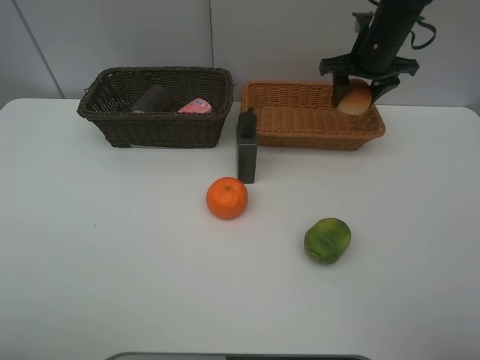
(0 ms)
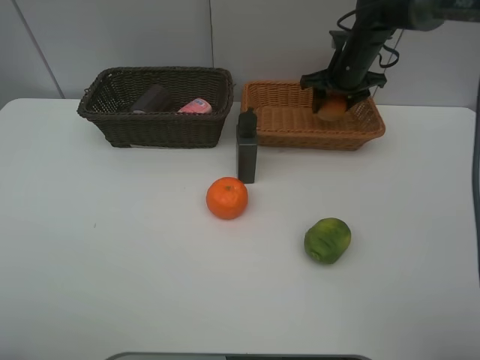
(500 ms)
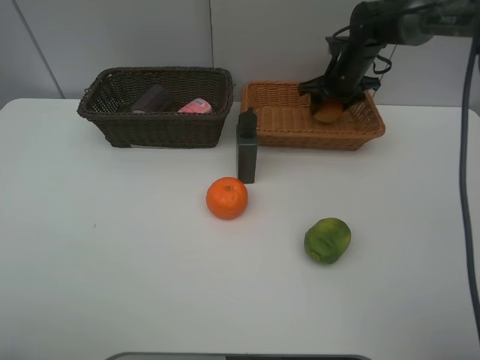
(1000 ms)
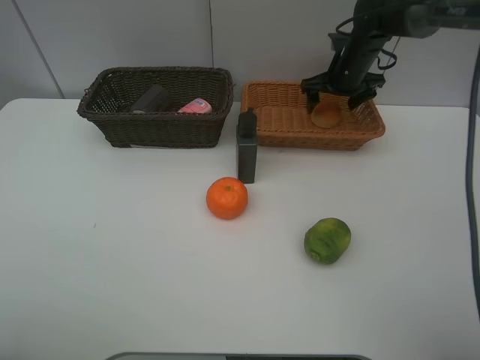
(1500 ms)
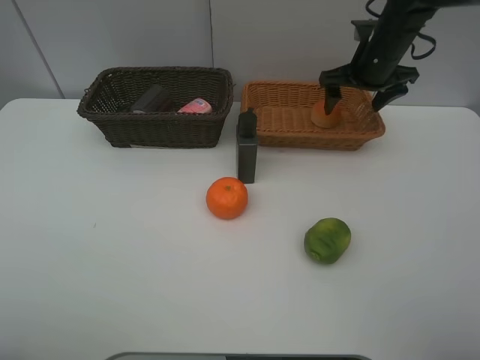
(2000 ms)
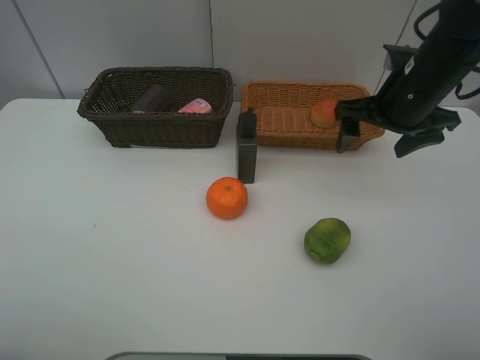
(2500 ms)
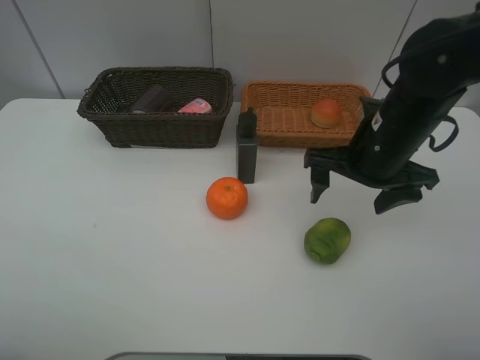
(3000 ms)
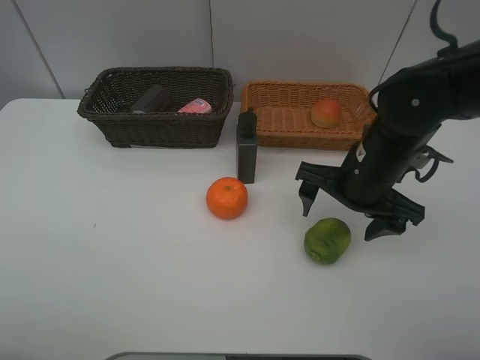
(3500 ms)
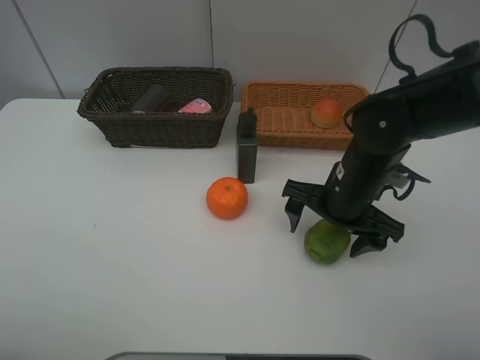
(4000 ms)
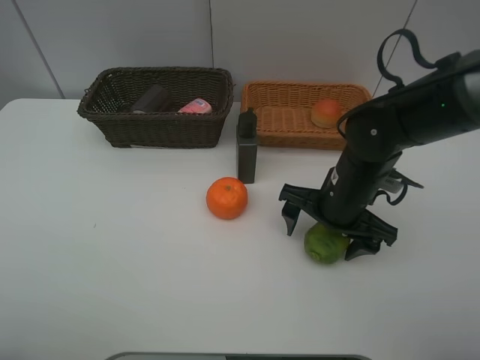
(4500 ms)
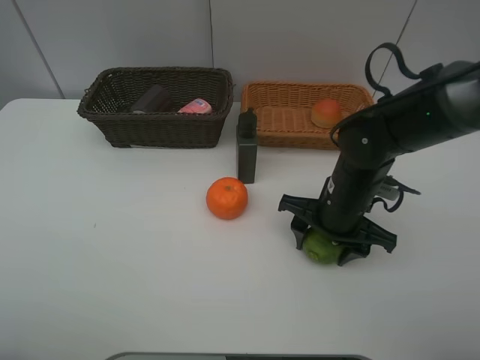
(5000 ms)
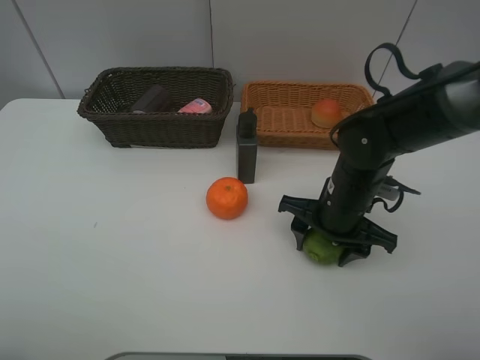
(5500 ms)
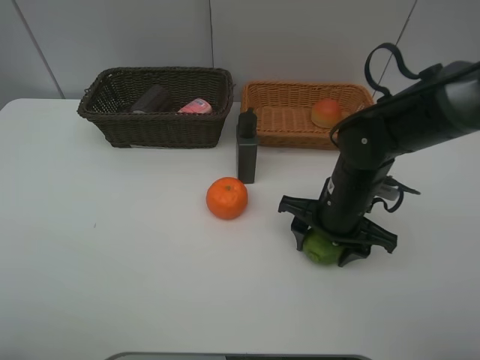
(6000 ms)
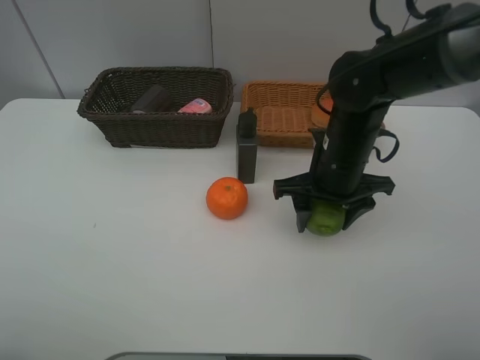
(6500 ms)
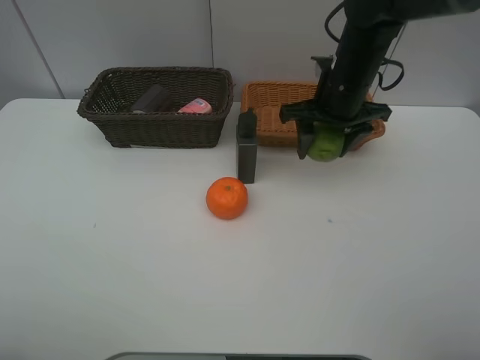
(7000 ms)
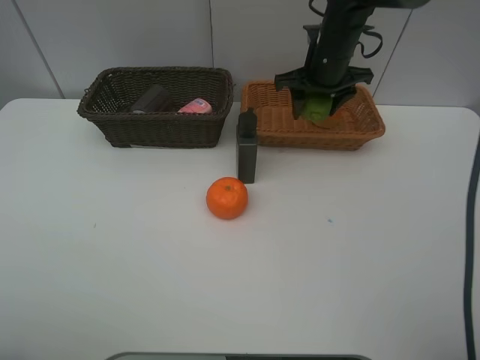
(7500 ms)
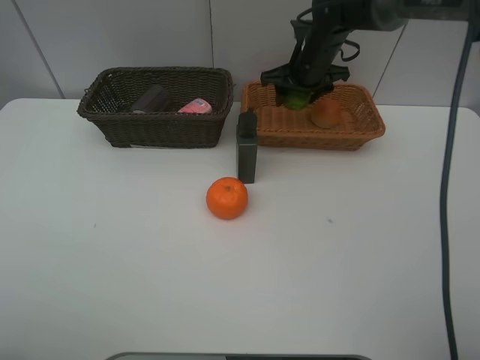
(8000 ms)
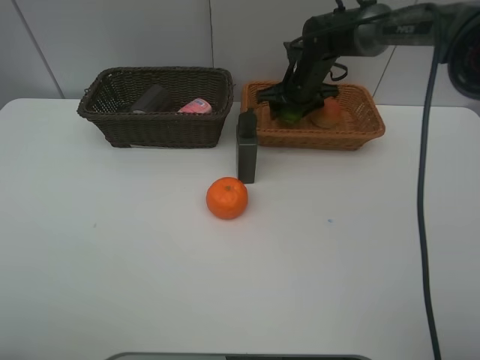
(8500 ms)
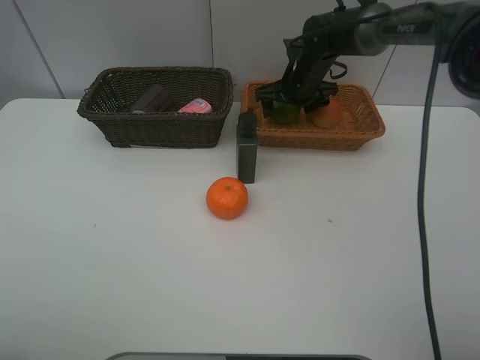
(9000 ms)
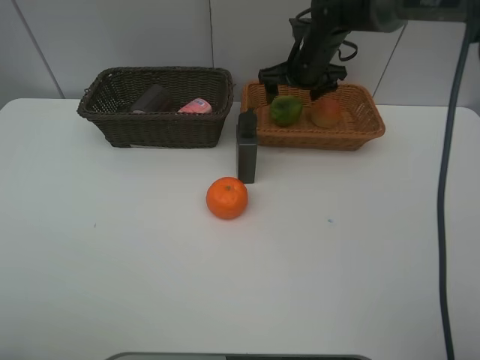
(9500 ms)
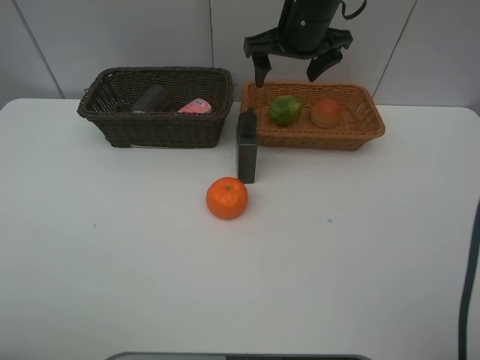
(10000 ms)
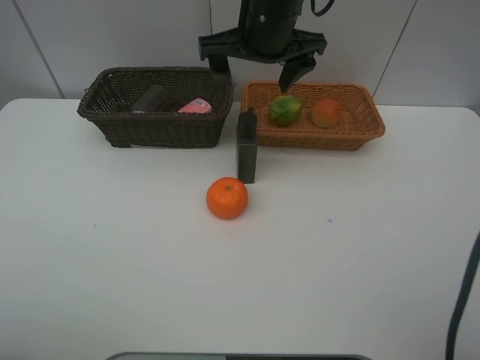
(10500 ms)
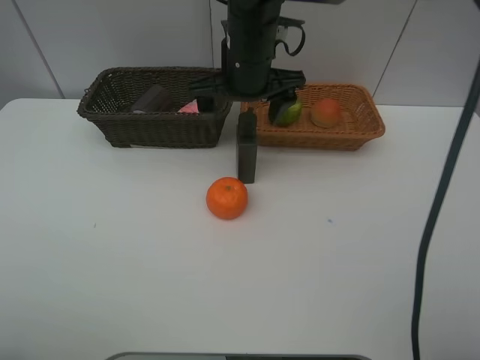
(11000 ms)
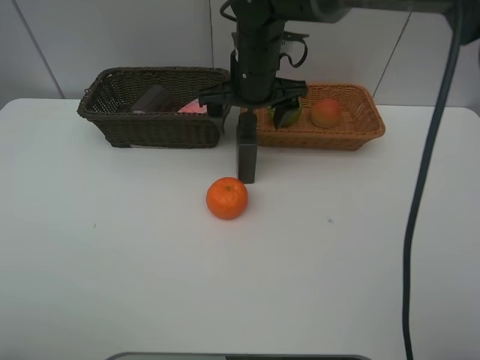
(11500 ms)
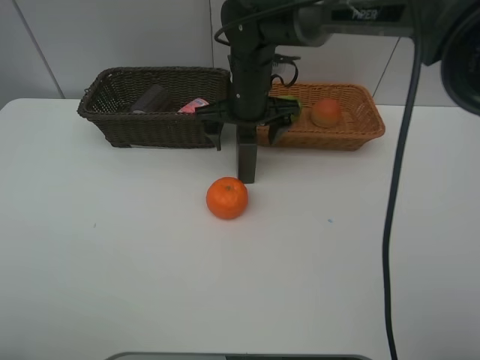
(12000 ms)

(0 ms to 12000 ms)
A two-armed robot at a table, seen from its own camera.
Task of the whole recording: place multiple objects separately in different baskets.
0 ms - 2000 ms: The right gripper opens its fingers.
2000 ms - 4000 ms: The right gripper is displaced backward, downward and to the left by approximately 20 cm.
4000 ms - 6000 ms: The right gripper closes up.
6000 ms - 8000 ms: The right gripper travels forward by roughly 25 cm.
8000 ms - 10000 ms: The right gripper is displaced upward and backward by some 10 cm, and opens its fingers.
10000 ms - 12000 ms: The right gripper is displaced downward and to the left by roughly 10 cm.

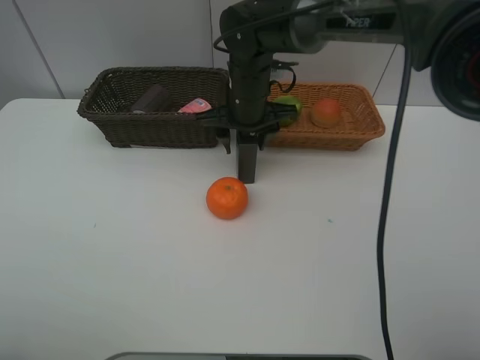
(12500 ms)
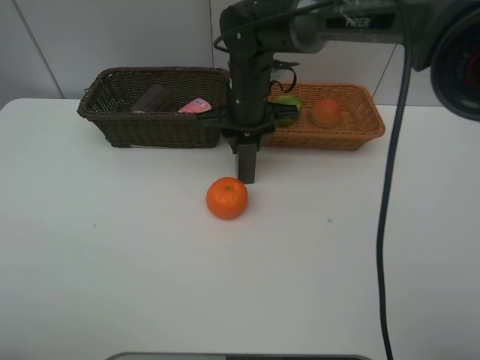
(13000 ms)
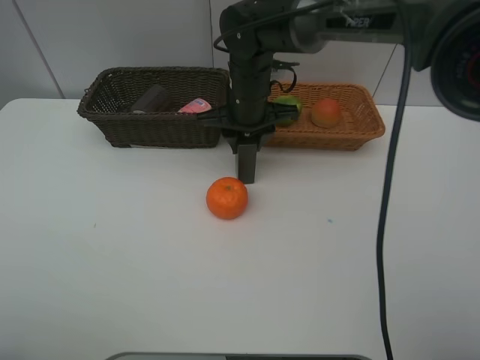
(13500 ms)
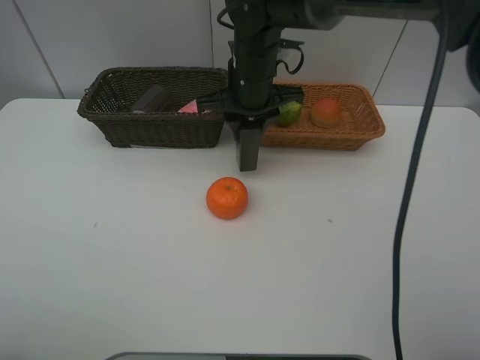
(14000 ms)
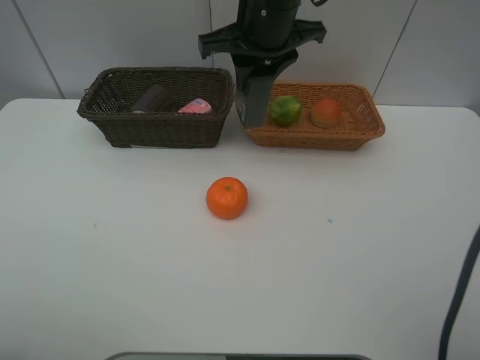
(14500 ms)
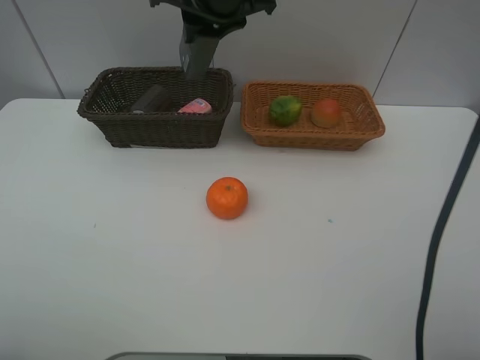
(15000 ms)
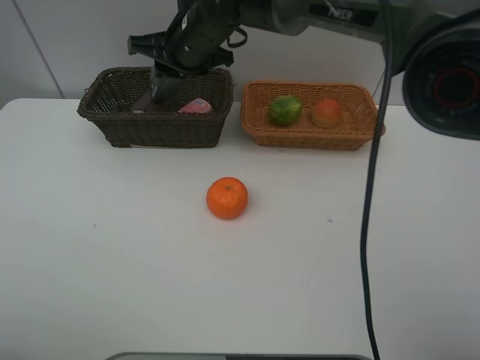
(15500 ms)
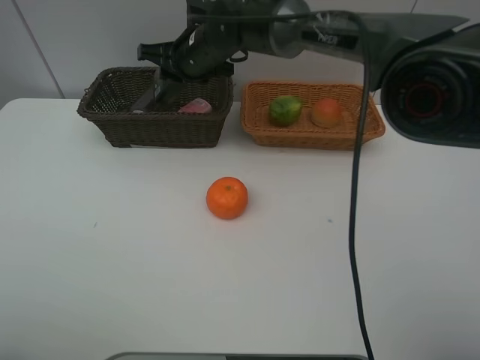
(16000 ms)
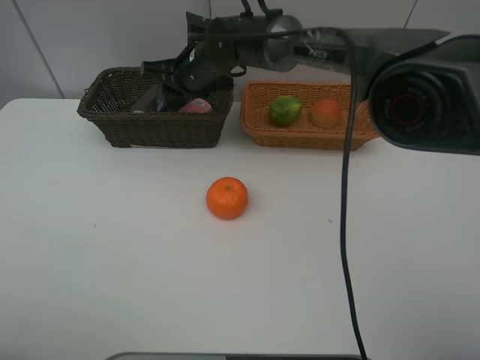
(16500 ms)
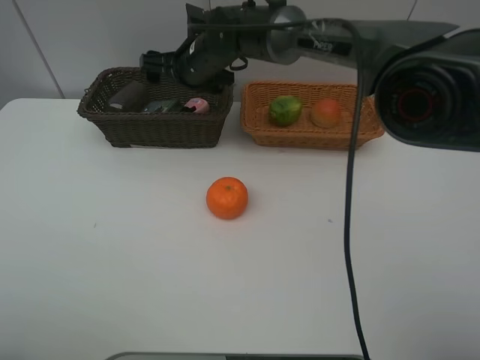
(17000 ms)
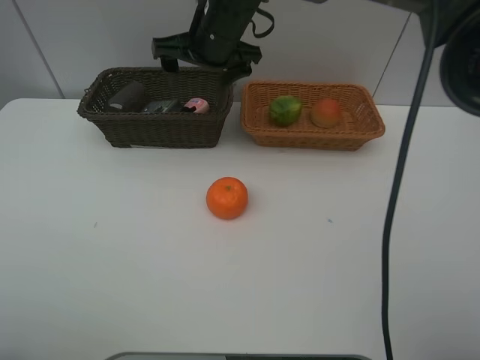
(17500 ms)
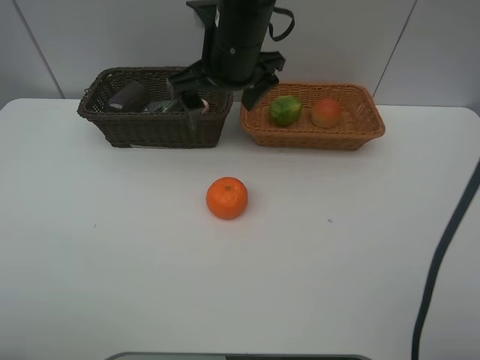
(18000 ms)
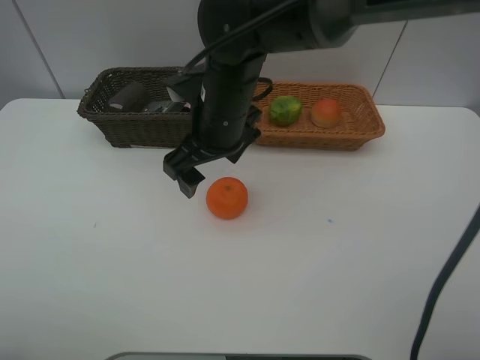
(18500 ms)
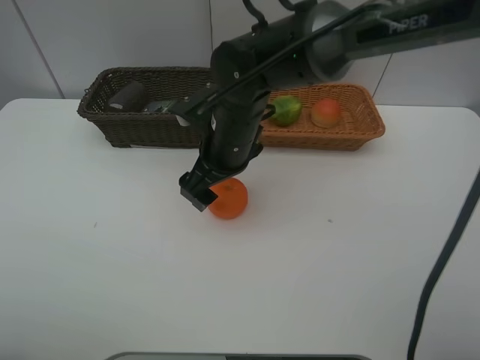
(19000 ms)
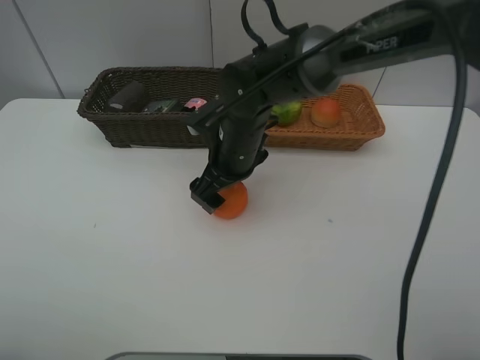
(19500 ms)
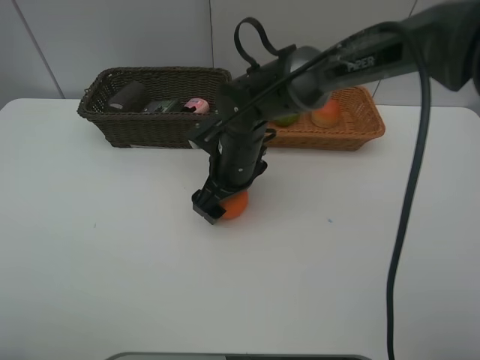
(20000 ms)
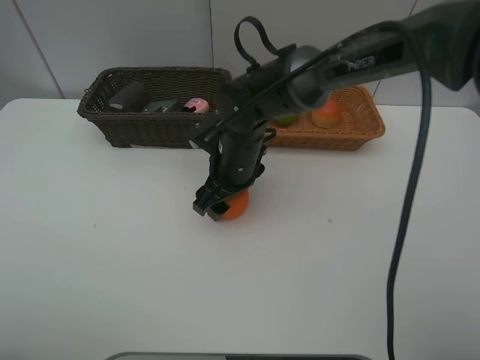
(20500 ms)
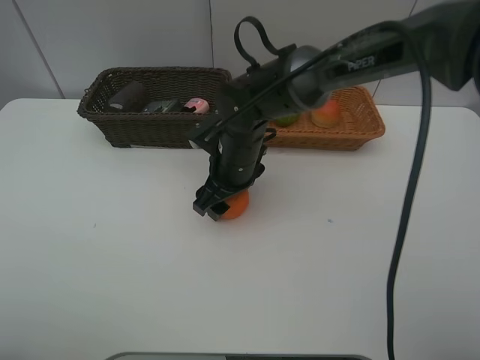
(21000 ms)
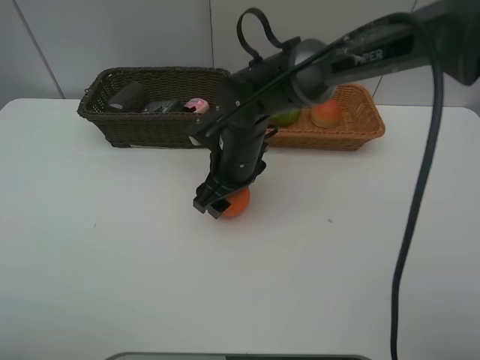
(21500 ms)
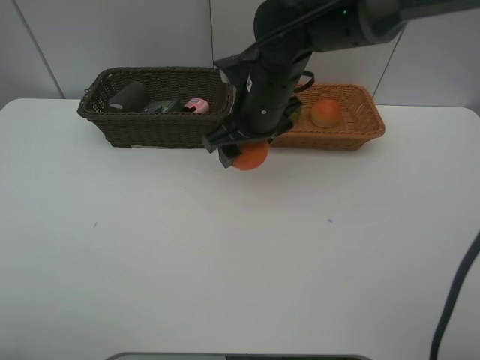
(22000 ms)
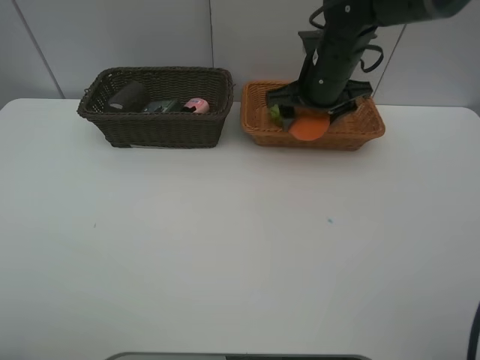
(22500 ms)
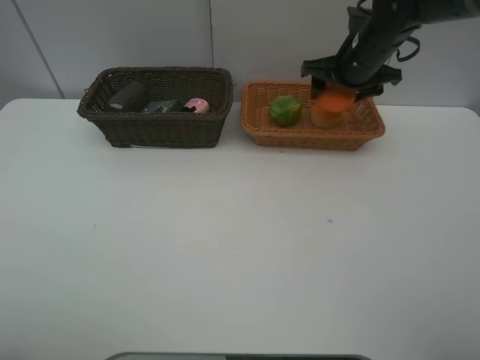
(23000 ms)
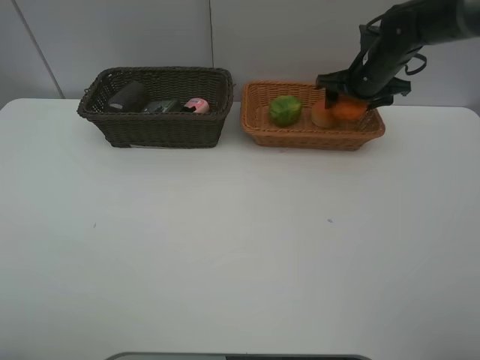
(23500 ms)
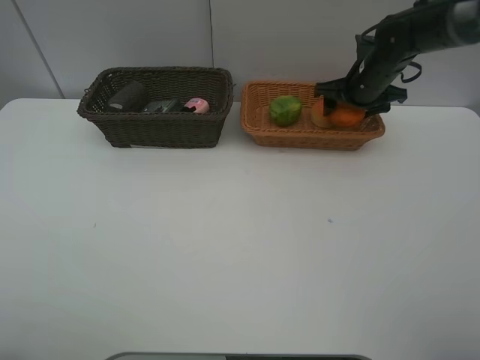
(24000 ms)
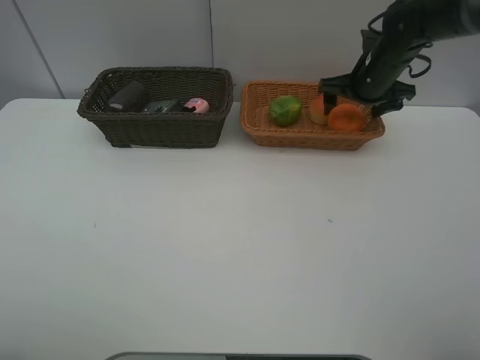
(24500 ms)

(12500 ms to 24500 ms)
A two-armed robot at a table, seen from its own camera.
Task of the whole recording: place multiple objects separately in different baskets.
12500 ms - 14500 ms: The right gripper is displaced upward by roughly 15 cm.
14500 ms - 16500 ms: The right gripper is displaced downward, to the left and forward by some 20 cm.
16500 ms - 18500 ms: The right gripper moves backward, some 15 cm, and opens its fingers.
18500 ms - 20500 ms: The right gripper heads downward, covering about 10 cm.
20500 ms - 22500 ms: The right gripper moves to the right, upward and forward, approximately 20 cm.
22500 ms - 24500 ms: The right gripper is displaced to the right by some 10 cm.

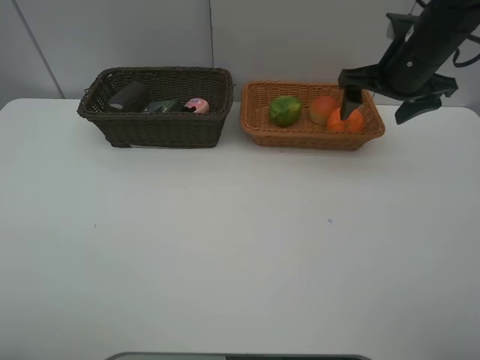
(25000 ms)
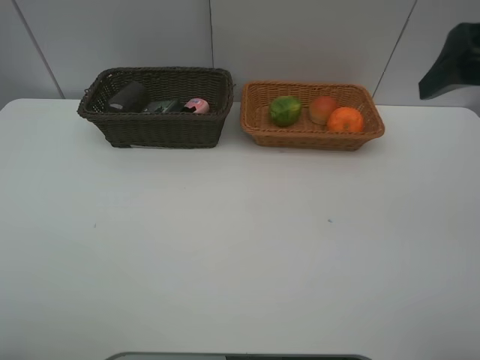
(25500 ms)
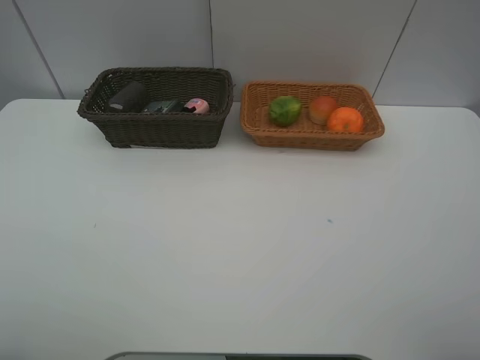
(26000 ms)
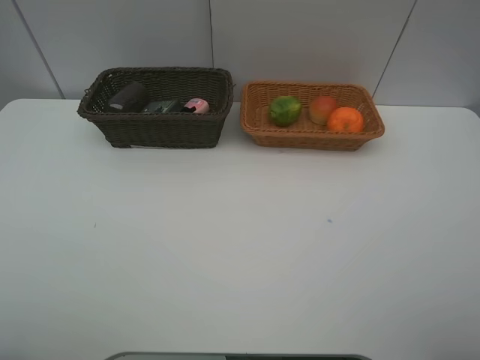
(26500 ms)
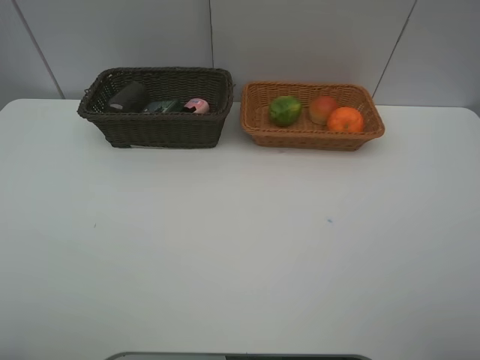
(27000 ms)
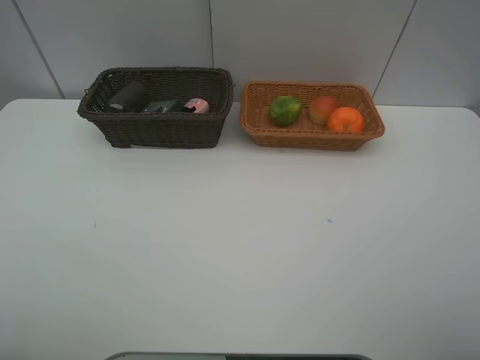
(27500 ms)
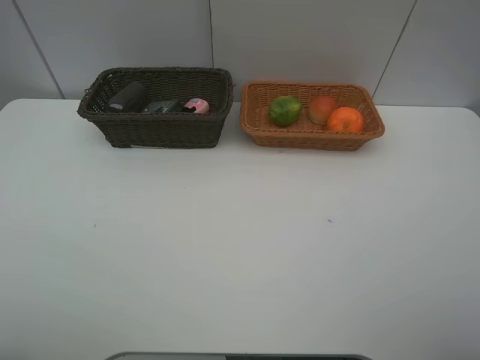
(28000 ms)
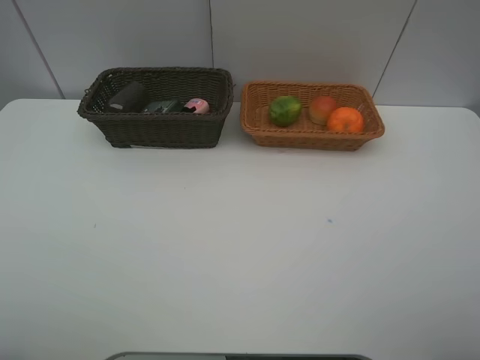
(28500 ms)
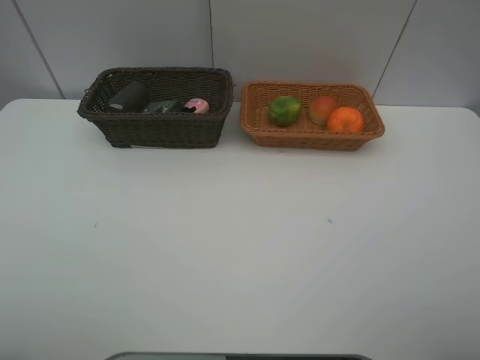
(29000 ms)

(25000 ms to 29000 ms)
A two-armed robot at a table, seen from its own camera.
Task of the whole recording: place multiple objects separately in different baskets.
25000 ms - 27000 ms: The right gripper is displaced backward by approximately 35 cm.
